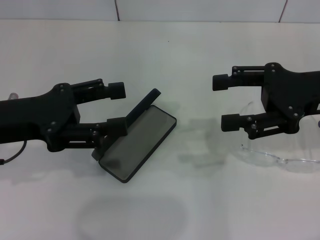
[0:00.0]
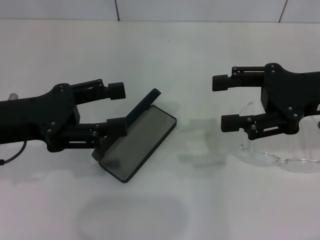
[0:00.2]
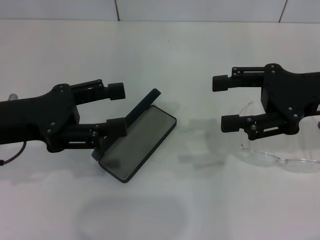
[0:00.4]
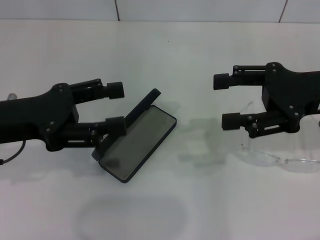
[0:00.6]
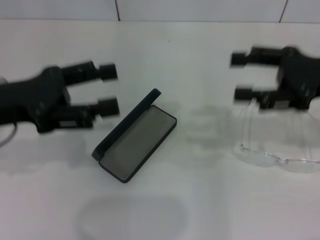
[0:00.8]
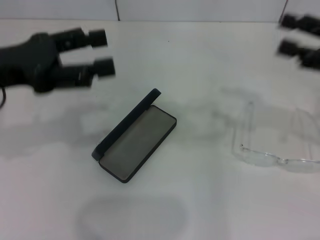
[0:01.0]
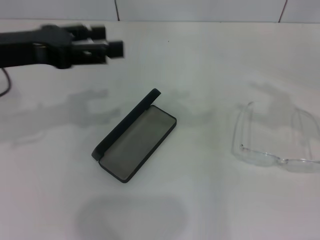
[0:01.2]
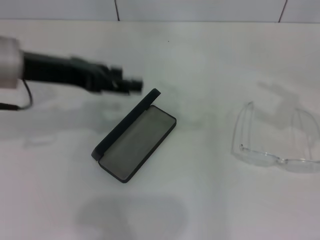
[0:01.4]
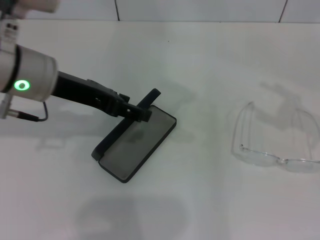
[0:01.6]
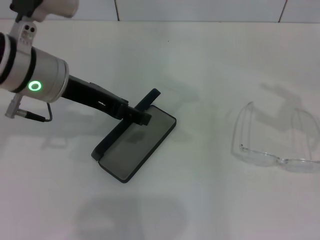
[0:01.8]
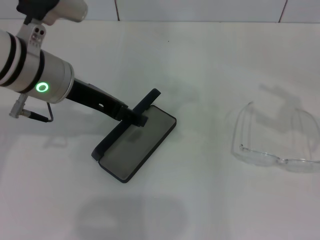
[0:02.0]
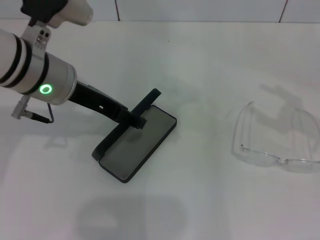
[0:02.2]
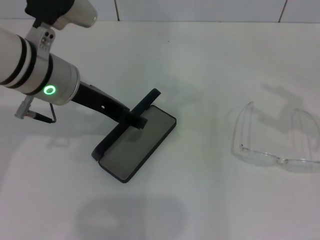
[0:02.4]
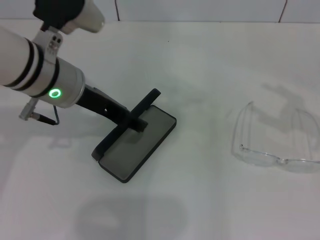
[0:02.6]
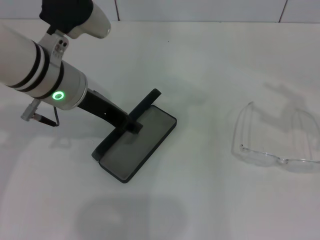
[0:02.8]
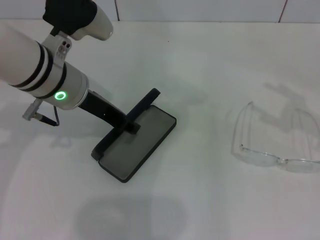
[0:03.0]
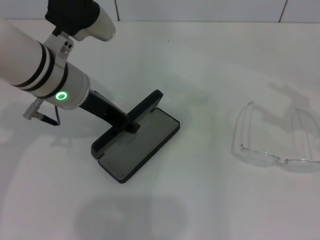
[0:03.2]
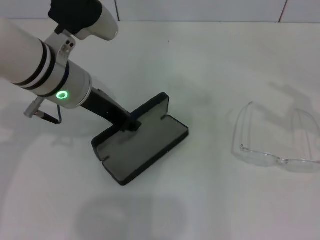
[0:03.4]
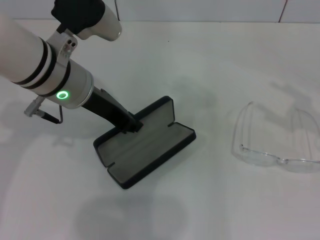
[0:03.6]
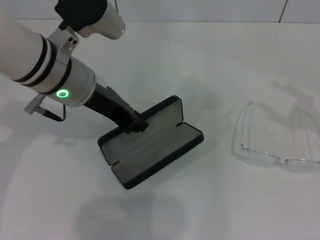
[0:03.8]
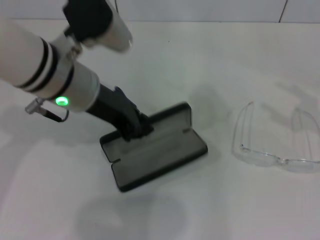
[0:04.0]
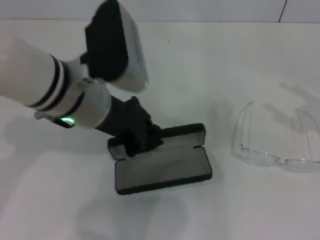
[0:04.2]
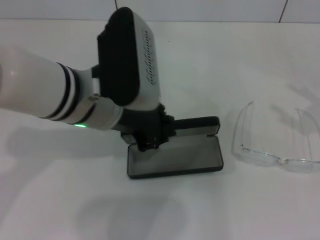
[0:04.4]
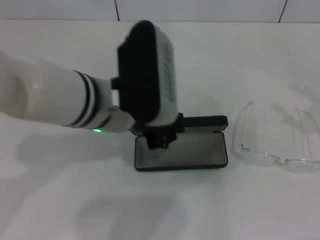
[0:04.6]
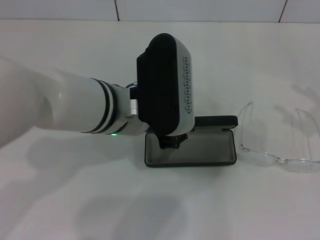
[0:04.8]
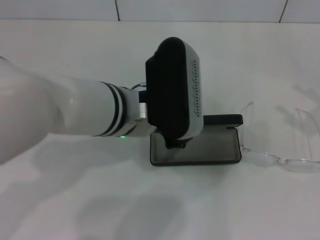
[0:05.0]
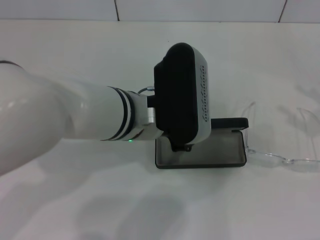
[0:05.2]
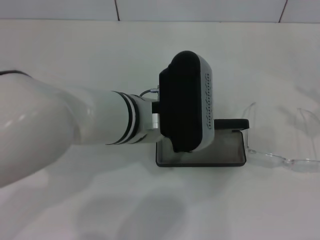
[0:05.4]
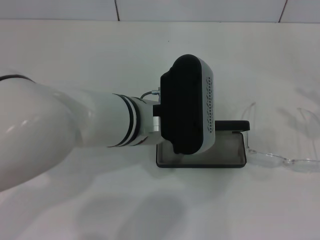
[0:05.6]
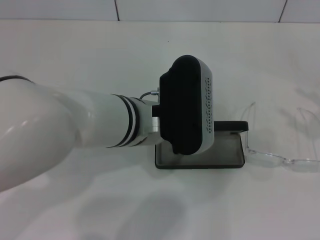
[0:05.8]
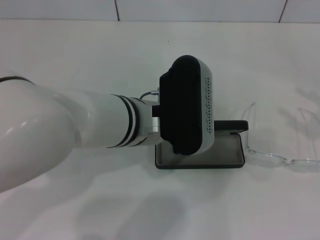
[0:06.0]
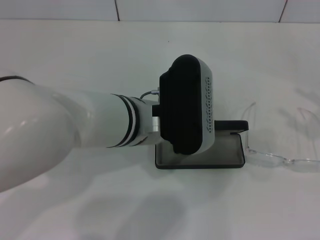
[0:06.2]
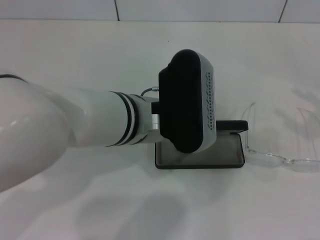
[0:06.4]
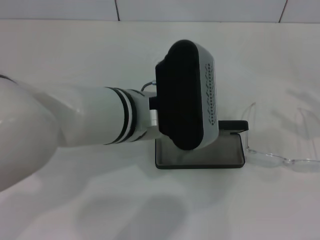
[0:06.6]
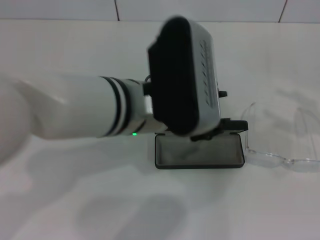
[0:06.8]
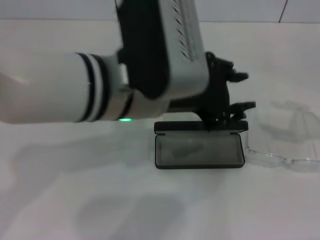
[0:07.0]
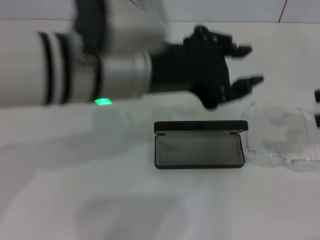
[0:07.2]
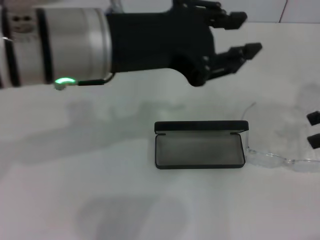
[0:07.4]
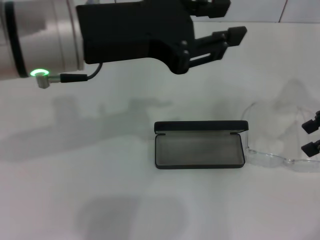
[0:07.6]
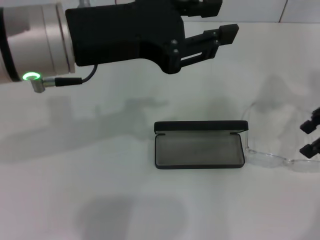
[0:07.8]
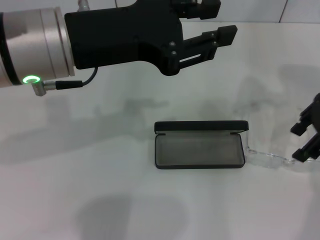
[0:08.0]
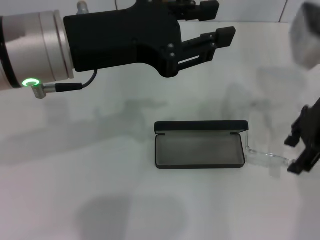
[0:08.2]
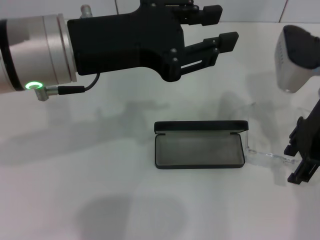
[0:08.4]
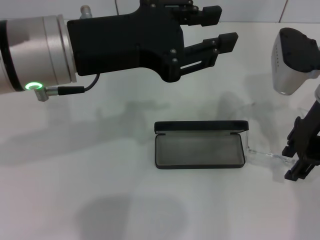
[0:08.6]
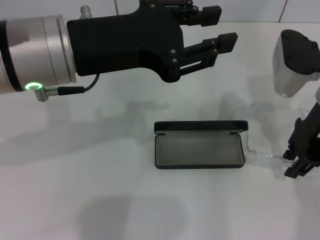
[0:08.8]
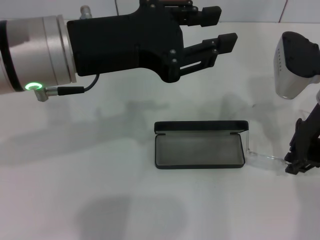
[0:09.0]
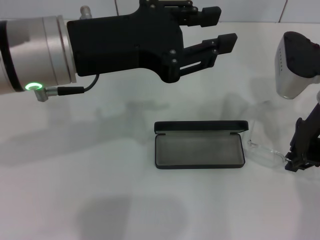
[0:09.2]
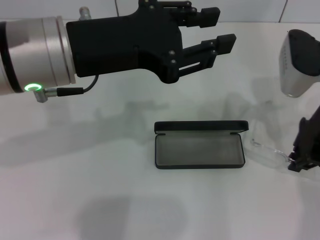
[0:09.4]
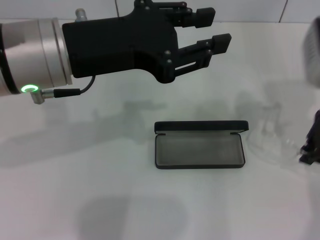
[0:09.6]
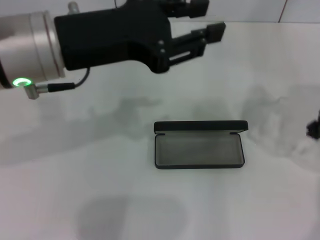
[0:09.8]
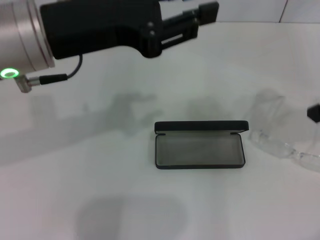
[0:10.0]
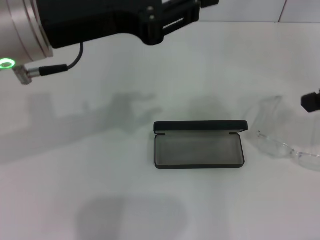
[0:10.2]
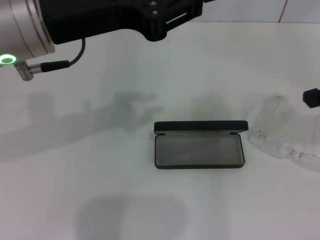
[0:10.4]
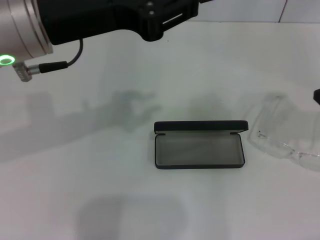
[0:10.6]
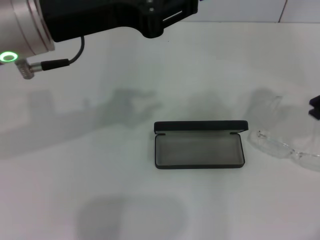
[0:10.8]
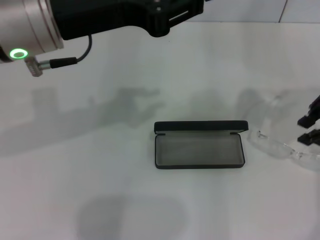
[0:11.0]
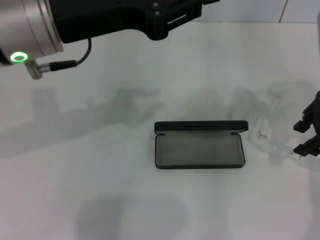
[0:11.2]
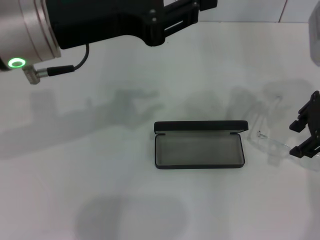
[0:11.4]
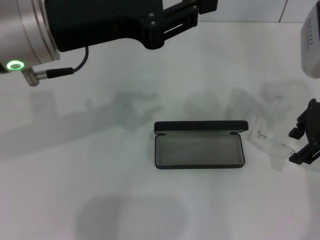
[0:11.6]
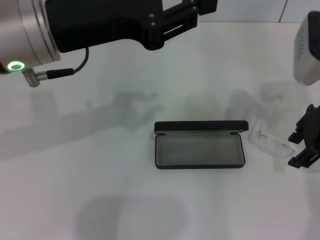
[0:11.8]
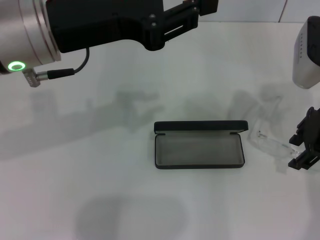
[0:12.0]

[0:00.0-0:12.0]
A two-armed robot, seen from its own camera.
Step, 0:00.0 to 0:03.0: Grab the glasses case with your left hand.
Step, 0:03.2 to 0:06.2: Place the glasses case in the center of the table with your left hand.
0:00.0 to 0:01.6: The right gripper moves to the right, approximately 10 cm. The left gripper moves forward and to the right, about 10 cm.
0:01.6 to 0:03.0: The grippers make only small movements.
0:03.0 to 0:04.4: The left gripper travels backward by about 5 cm, and closes.
0:04.4 to 0:06.0: The left gripper is displaced to the right by some 5 cm.
0:06.0 to 0:07.6: The left gripper shifts about 15 cm upward and to the left. Meanwhile the right gripper shifts some 15 cm forward and to the left.
0:07.6 to 0:09.0: The right gripper goes roughly 10 cm to the left.
0:09.0 to 0:10.4: The right gripper shifts about 15 cm upward, to the right and backward, and closes.
0:10.4 to 0:12.0: The right gripper heads downward, to the left and forward, covering approximately 10 cm, and opens up.

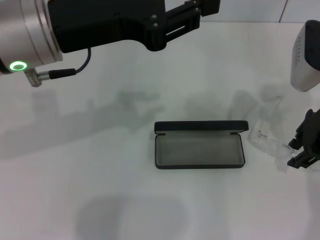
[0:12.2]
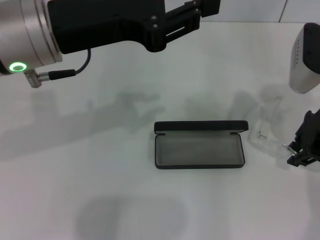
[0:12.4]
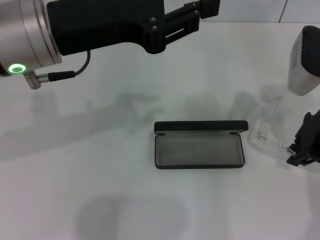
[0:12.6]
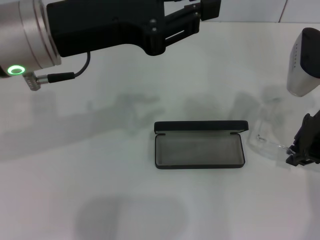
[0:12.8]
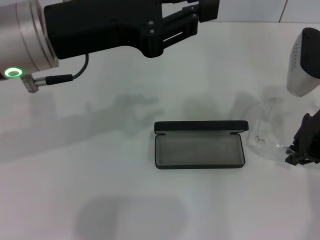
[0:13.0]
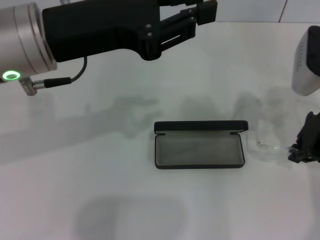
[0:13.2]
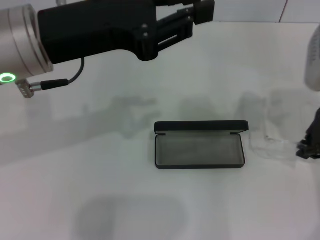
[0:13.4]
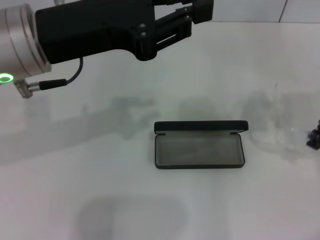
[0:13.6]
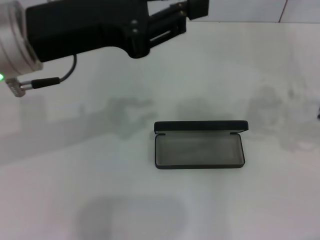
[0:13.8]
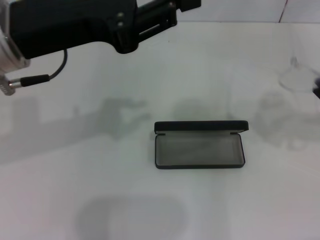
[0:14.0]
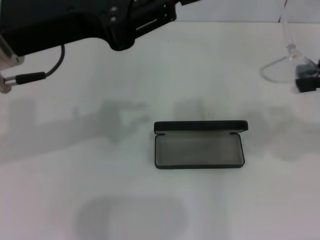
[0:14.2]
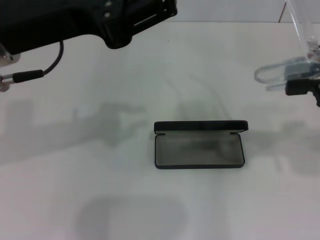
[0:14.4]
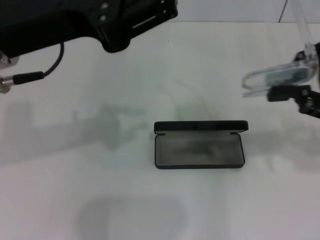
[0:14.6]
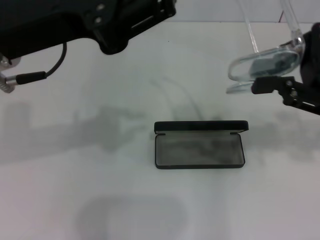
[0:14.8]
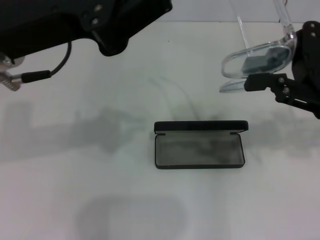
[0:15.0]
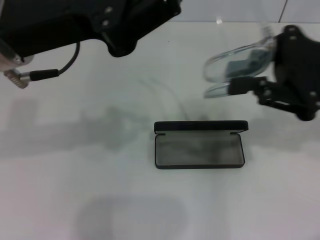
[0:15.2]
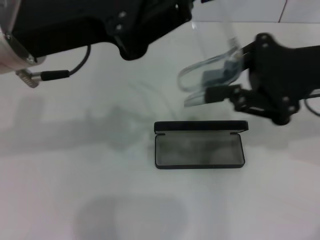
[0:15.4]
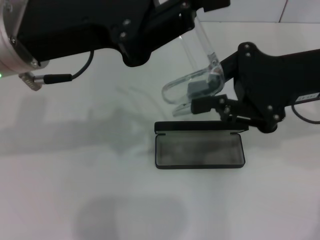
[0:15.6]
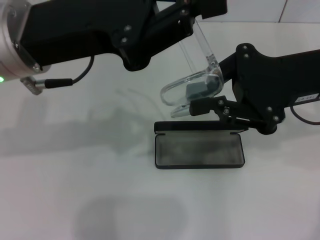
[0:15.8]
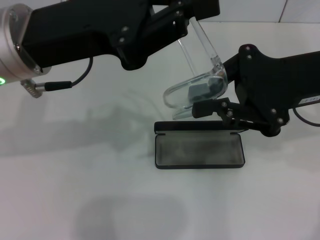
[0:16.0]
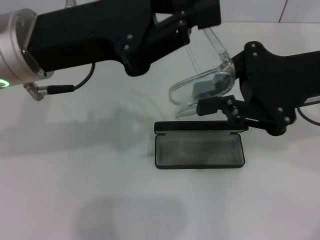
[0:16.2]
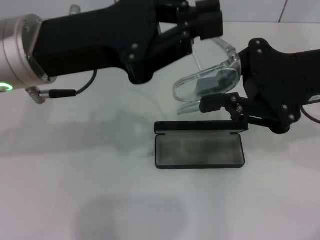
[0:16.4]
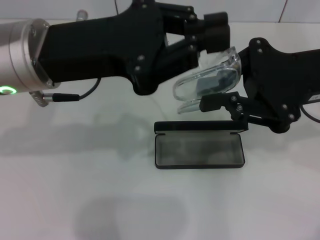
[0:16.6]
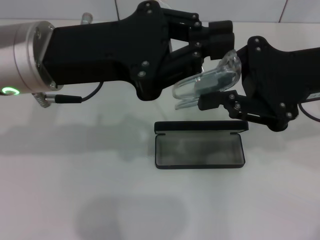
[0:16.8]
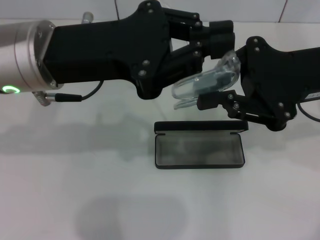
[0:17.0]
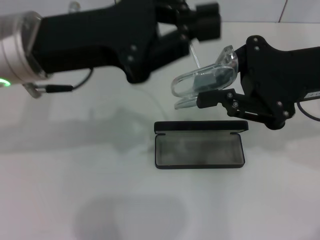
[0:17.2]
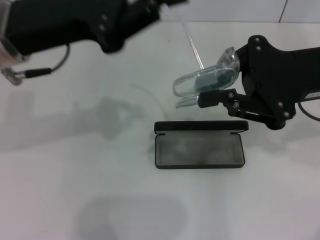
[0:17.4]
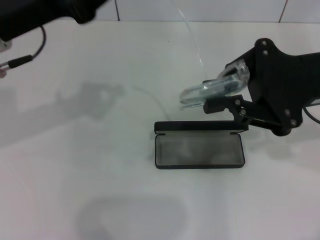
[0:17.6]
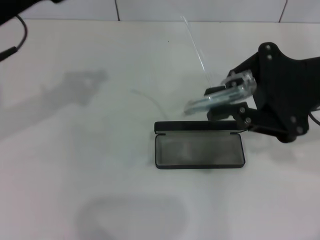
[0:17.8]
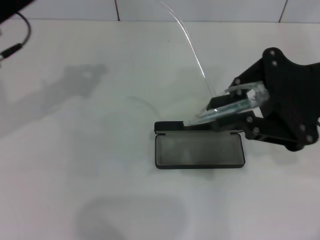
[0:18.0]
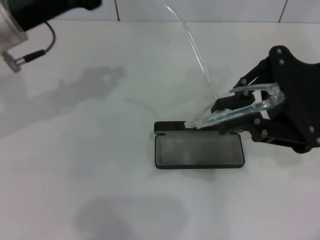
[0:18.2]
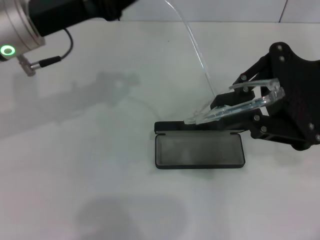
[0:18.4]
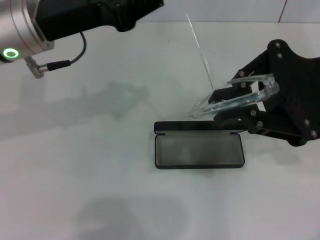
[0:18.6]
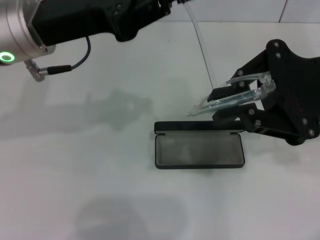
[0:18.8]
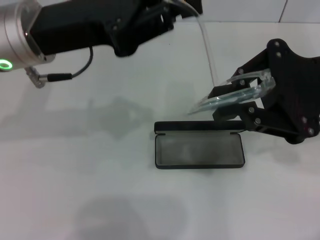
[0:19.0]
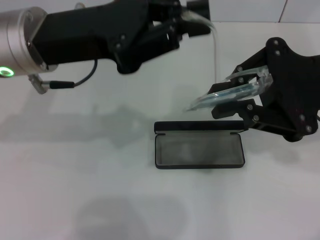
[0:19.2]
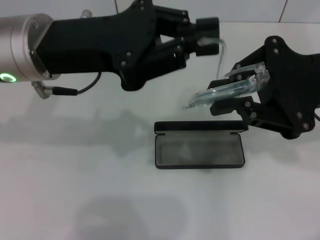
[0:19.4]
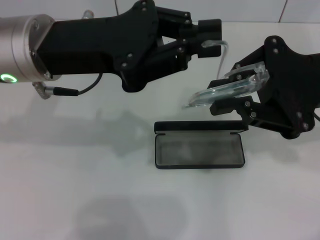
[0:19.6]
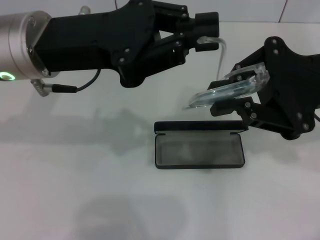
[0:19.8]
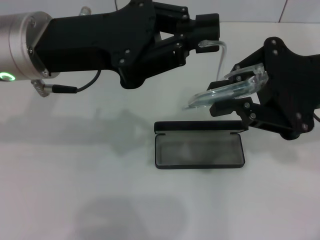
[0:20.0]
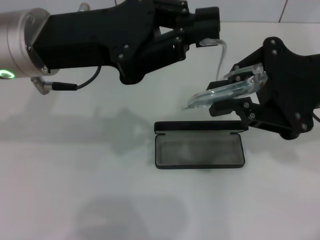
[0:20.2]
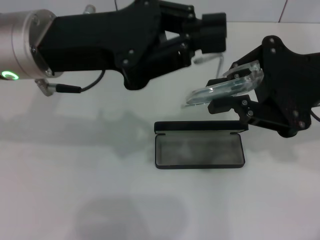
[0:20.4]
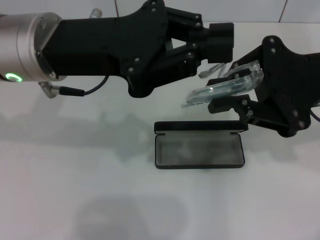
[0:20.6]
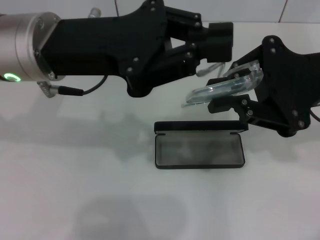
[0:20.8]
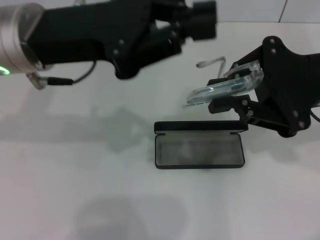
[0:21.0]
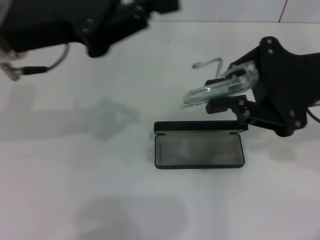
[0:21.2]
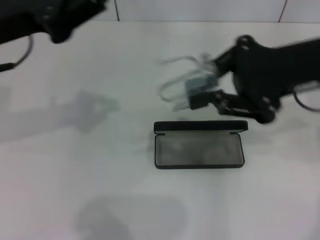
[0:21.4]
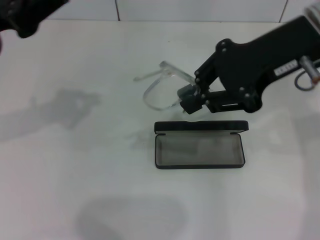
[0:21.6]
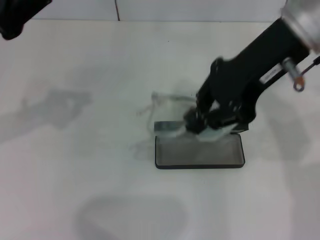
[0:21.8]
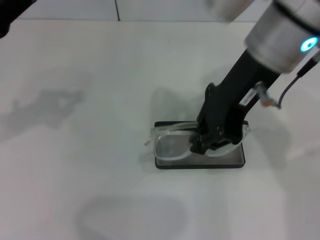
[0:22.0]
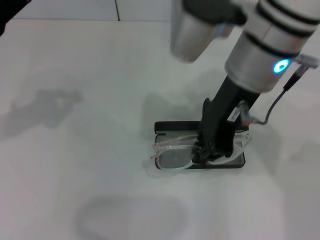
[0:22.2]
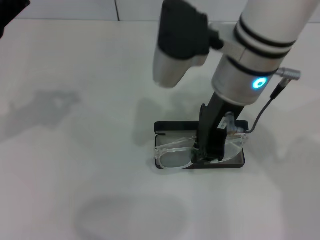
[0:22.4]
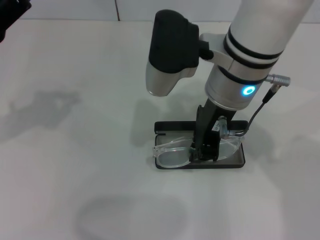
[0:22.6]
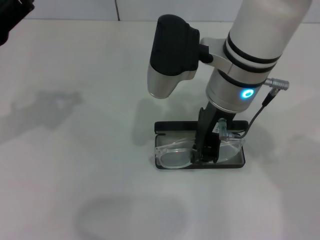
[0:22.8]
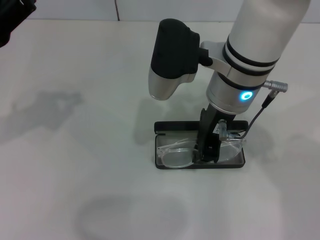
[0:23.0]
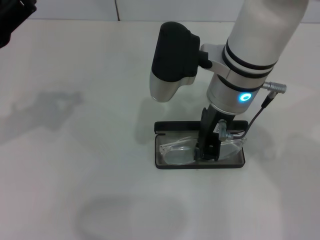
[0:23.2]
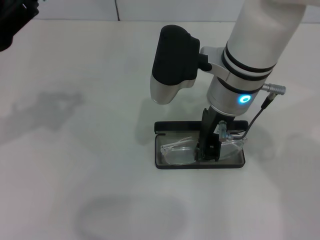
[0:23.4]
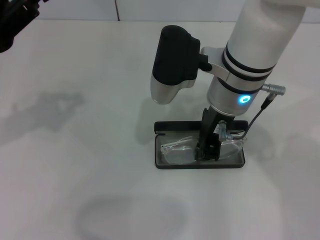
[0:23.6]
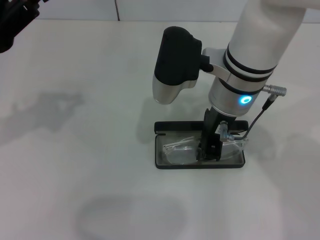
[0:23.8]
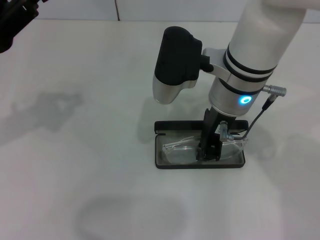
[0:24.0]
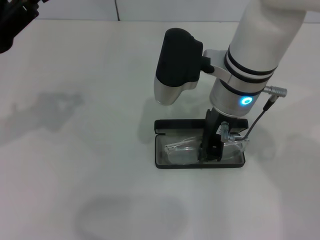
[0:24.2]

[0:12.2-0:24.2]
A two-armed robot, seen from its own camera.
Step, 0:13.0 to 0:20.6: Fold the frame with your left hand.
0:12.2 to 0:13.8: The right gripper goes about 10 cm upward and to the right, and closes.
0:13.8 to 0:15.2: The right gripper moves about 5 cm.
0:16.6 to 0:18.2: The left gripper goes roughly 10 cm forward and to the left.
0:18.2 to 0:19.8: The left gripper moves to the right, roughly 5 cm.
0:21.2 to 0:22.6: The right gripper travels to the left by roughly 15 cm. The left gripper heads to the left, covering about 10 cm.
0:22.6 to 0:24.2: The grippers move only a little.
